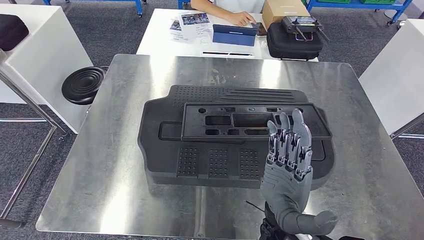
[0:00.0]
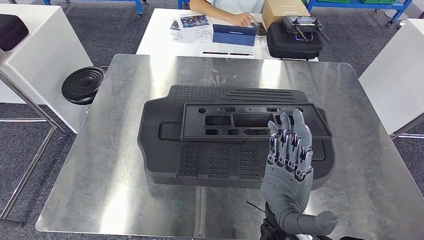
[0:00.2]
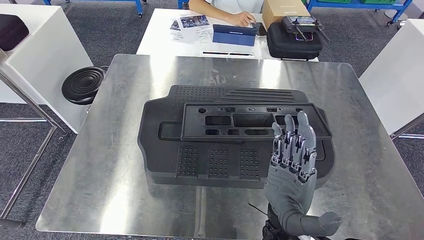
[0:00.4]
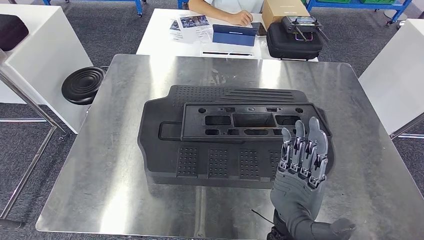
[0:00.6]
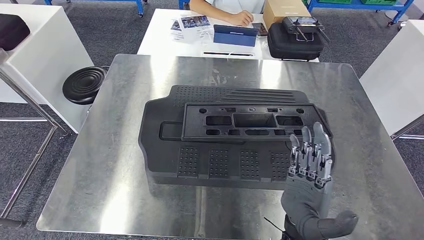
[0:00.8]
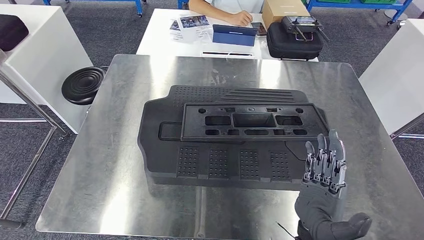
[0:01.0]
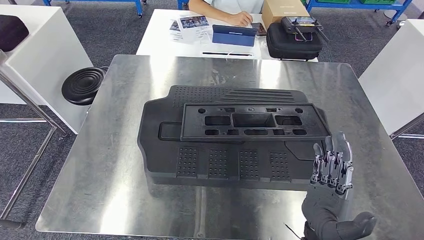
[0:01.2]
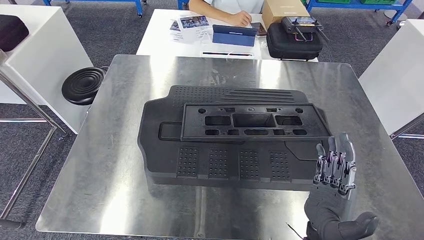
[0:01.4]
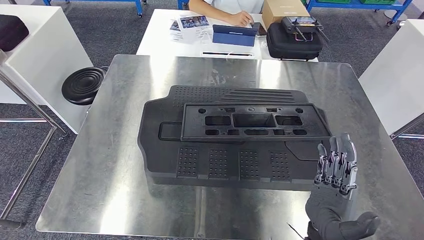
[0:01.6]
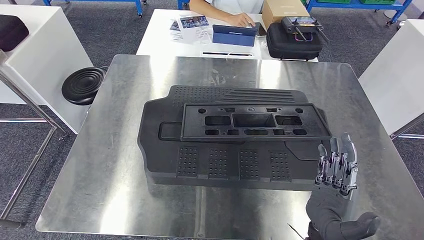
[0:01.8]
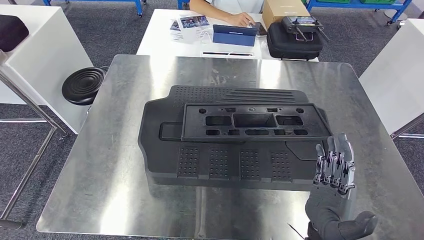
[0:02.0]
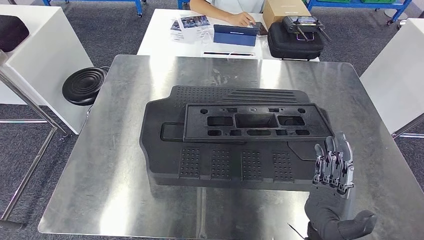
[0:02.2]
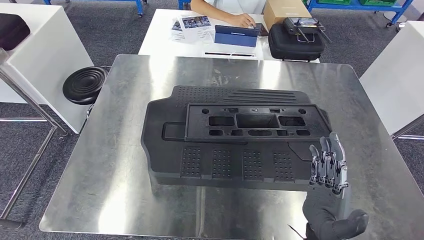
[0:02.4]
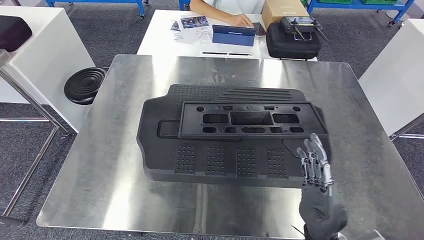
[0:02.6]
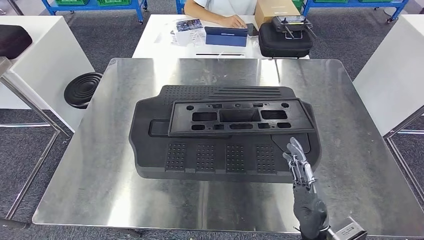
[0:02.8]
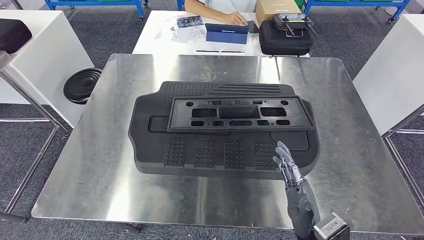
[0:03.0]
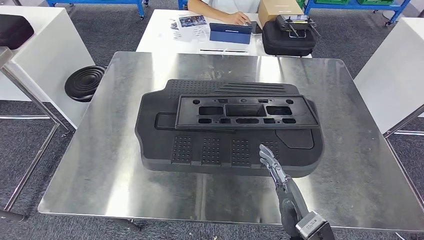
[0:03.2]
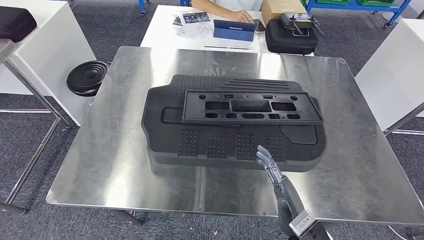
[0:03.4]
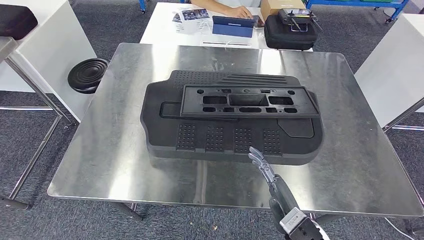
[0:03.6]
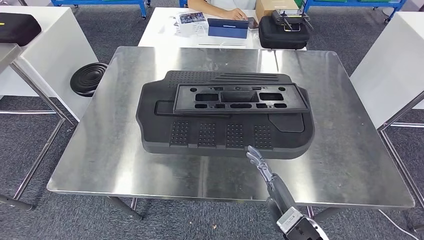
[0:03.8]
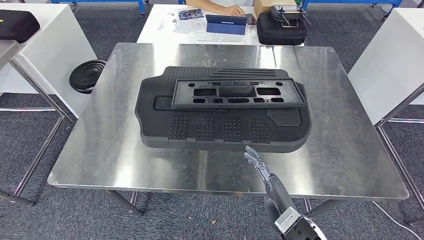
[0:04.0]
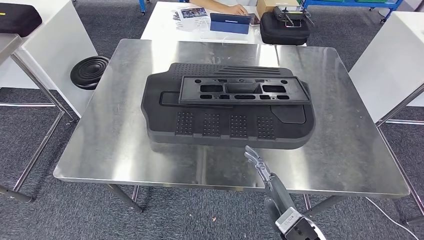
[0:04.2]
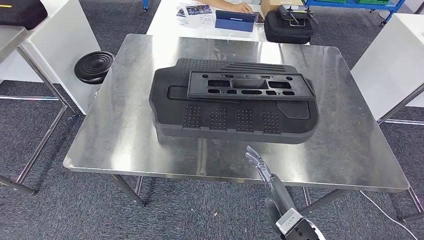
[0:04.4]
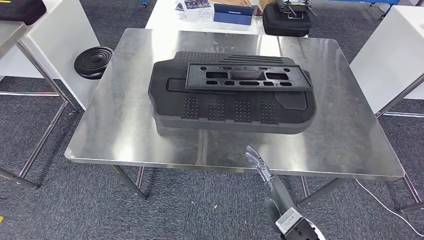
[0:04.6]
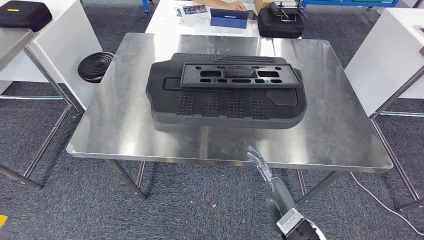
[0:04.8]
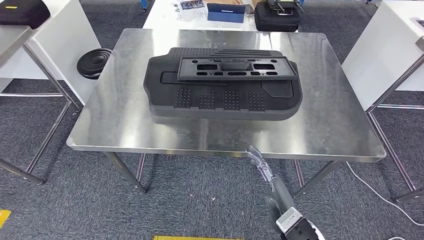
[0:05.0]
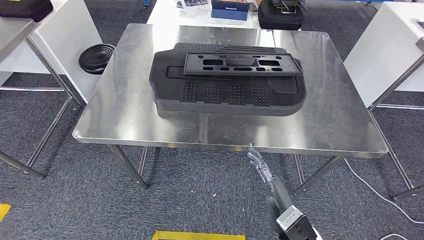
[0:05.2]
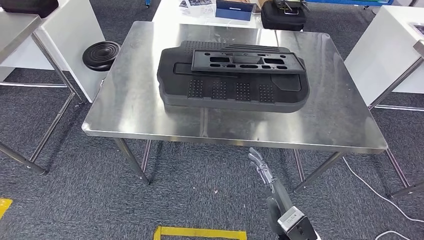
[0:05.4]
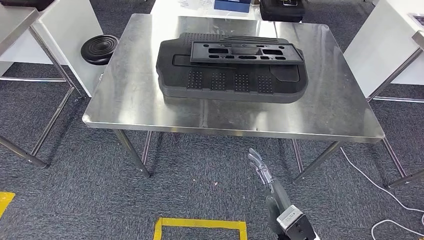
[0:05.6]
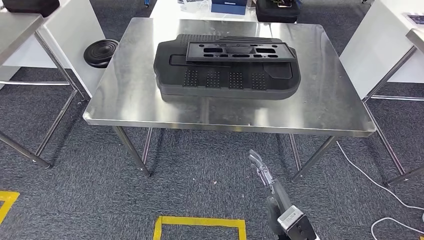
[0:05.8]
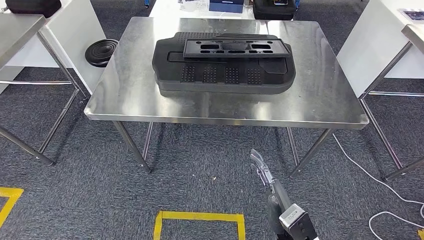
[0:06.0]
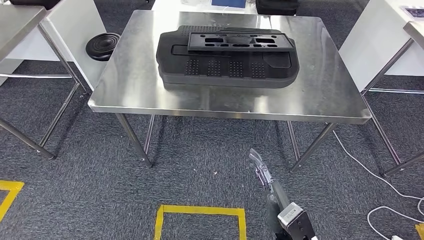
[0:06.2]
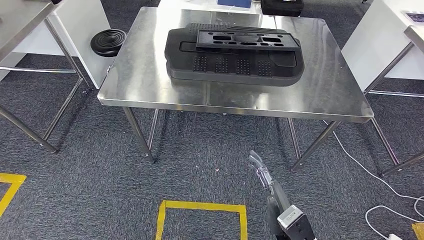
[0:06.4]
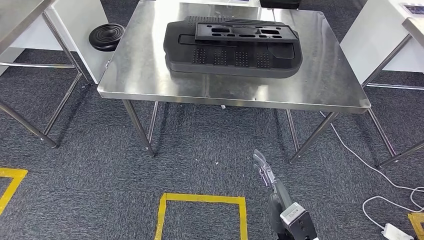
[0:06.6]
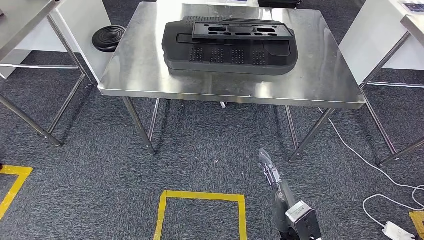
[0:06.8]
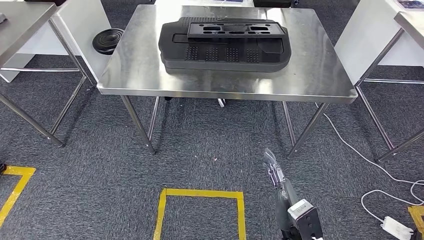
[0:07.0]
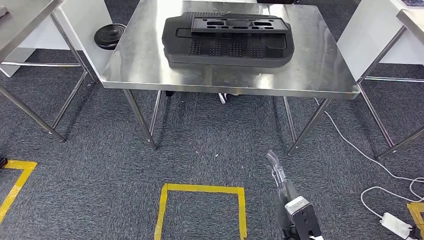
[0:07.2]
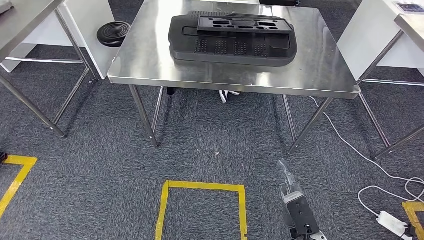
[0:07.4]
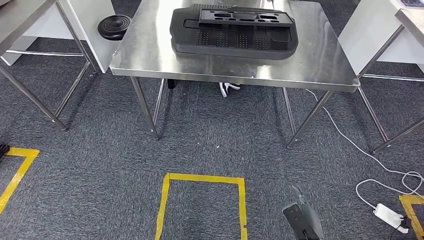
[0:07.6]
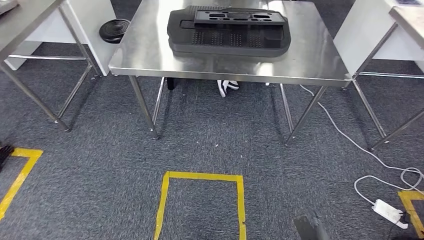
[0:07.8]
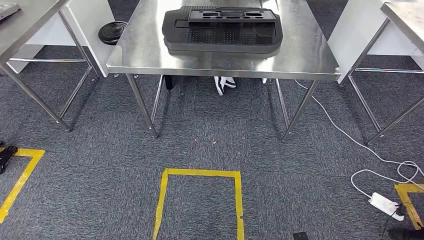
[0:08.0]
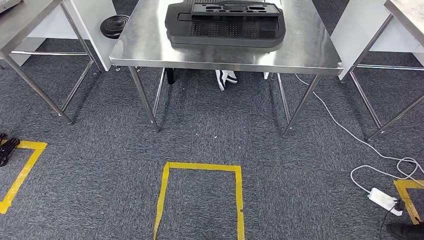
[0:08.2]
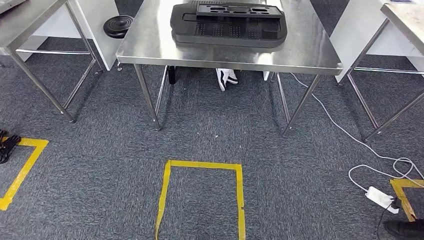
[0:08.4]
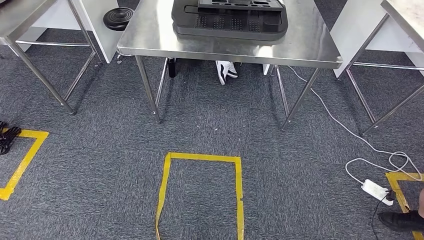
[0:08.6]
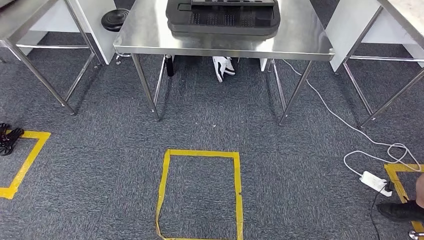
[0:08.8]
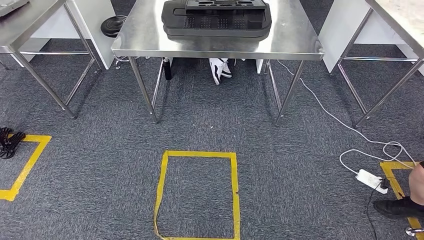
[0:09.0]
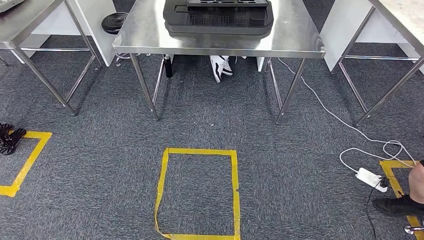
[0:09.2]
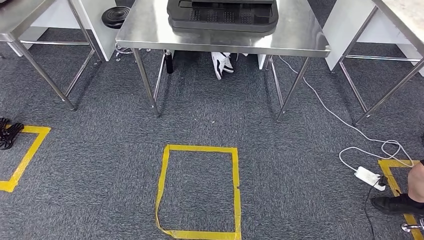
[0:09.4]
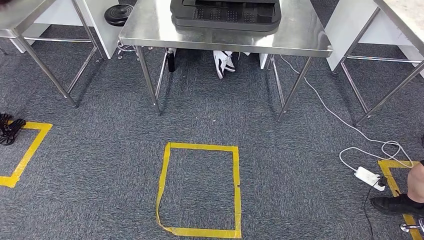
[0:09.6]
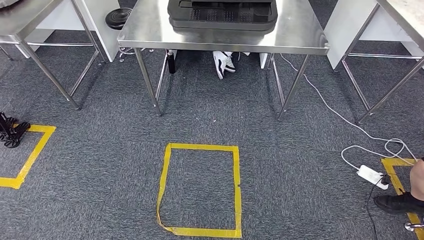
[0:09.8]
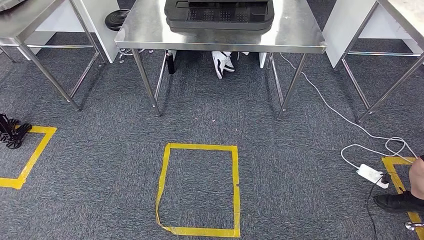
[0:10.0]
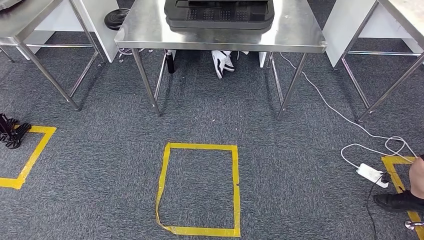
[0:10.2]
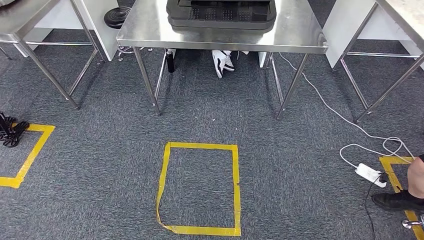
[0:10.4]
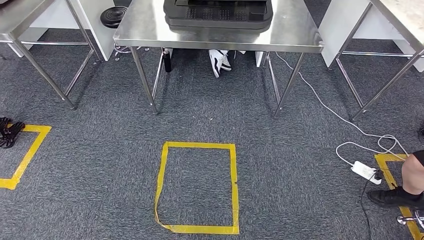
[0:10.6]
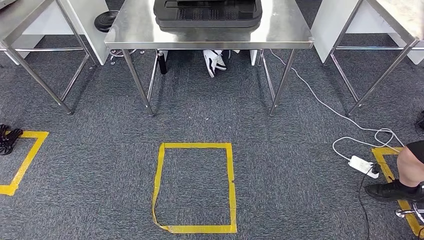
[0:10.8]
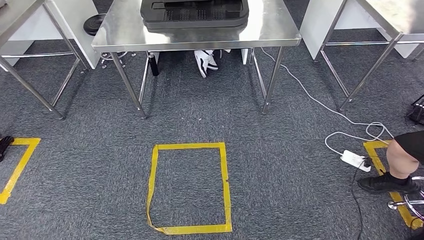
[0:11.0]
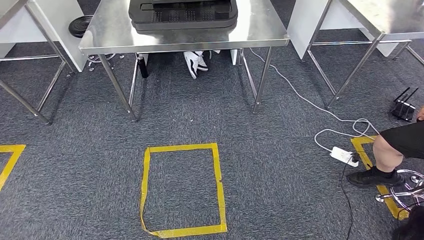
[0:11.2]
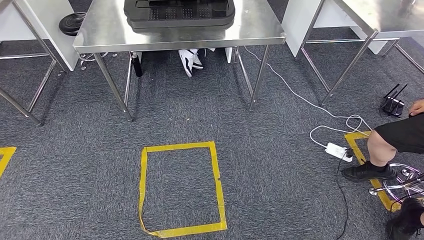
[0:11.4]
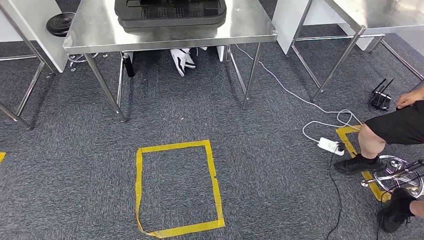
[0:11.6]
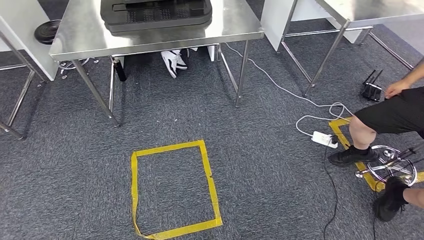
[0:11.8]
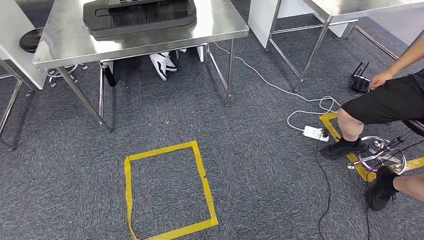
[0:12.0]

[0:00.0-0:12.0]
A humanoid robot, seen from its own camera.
0:00.0 to 0:01.6: The right hand travels to the right by some 5 cm.

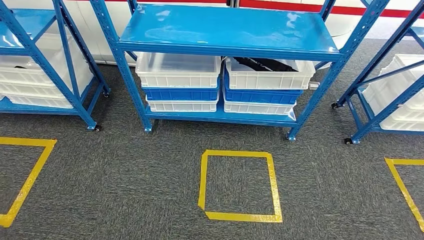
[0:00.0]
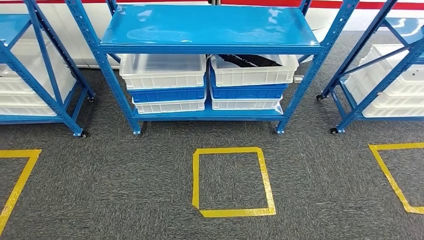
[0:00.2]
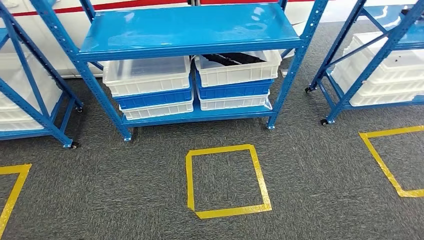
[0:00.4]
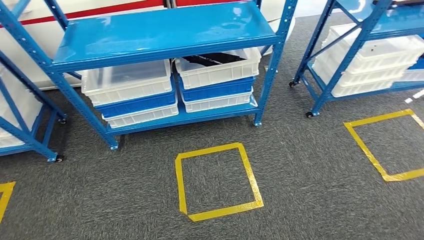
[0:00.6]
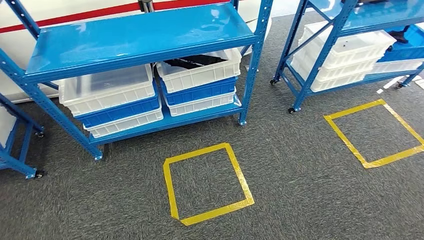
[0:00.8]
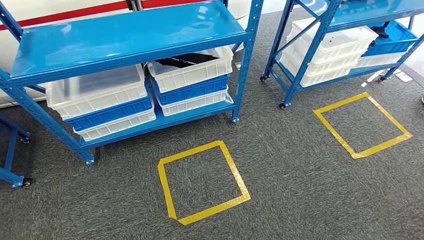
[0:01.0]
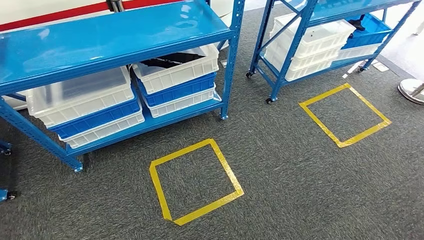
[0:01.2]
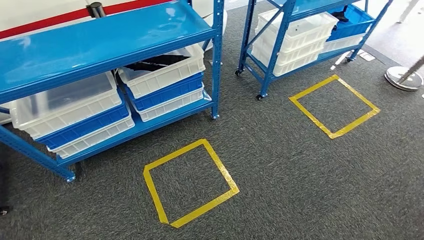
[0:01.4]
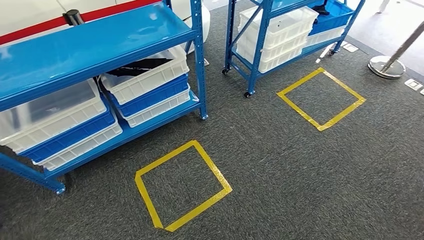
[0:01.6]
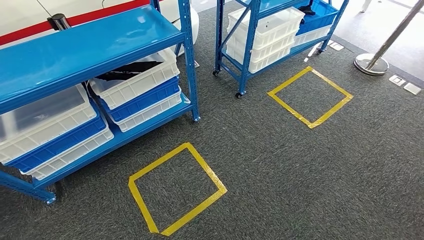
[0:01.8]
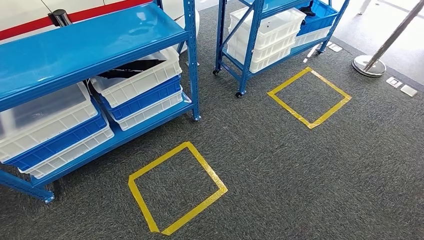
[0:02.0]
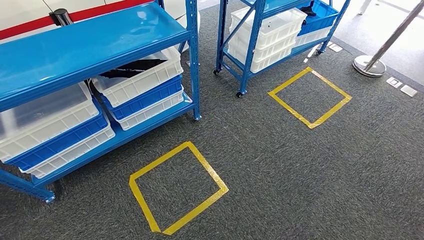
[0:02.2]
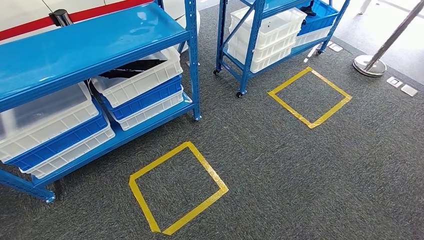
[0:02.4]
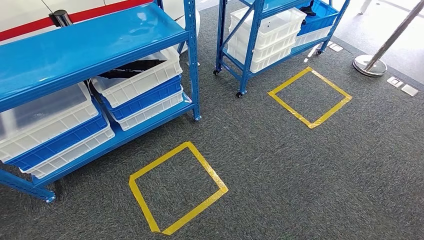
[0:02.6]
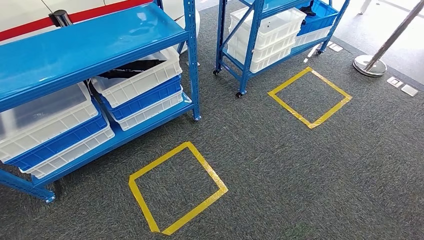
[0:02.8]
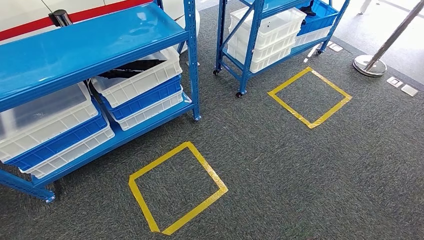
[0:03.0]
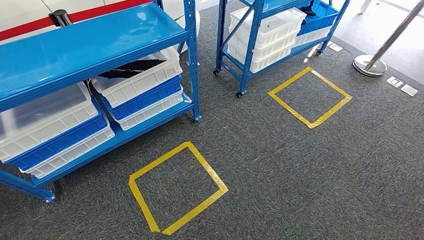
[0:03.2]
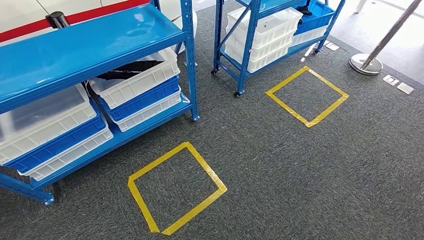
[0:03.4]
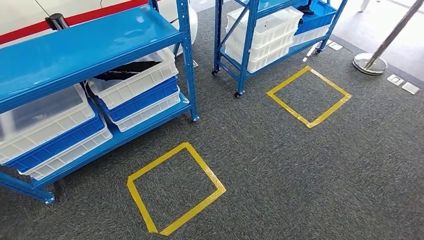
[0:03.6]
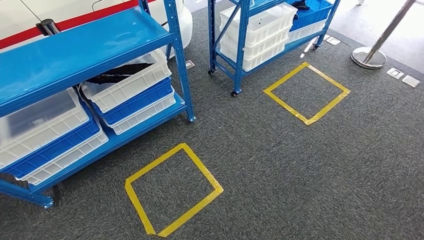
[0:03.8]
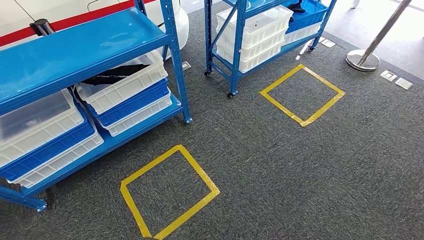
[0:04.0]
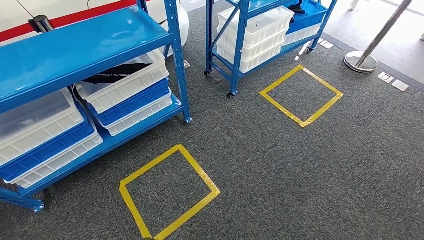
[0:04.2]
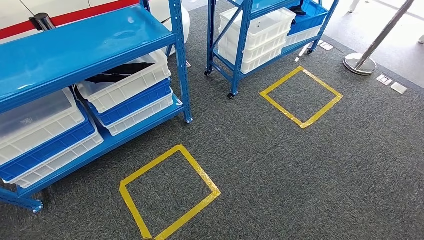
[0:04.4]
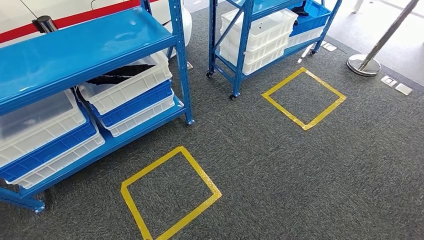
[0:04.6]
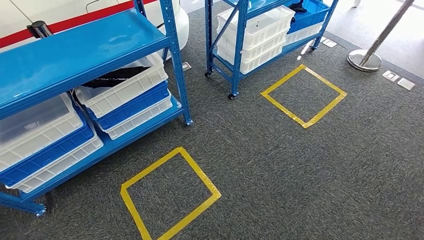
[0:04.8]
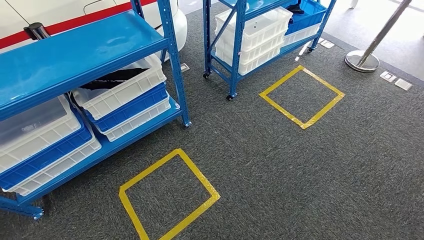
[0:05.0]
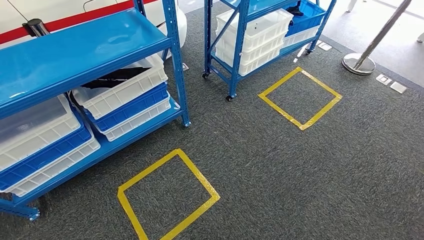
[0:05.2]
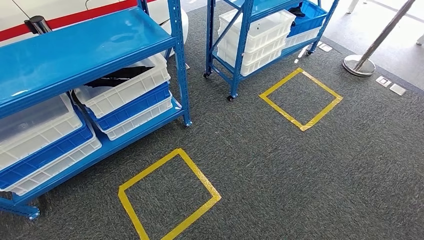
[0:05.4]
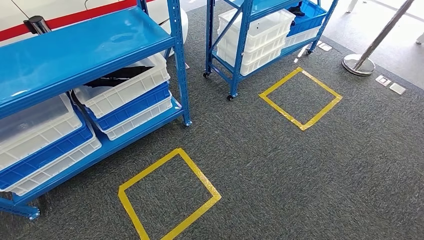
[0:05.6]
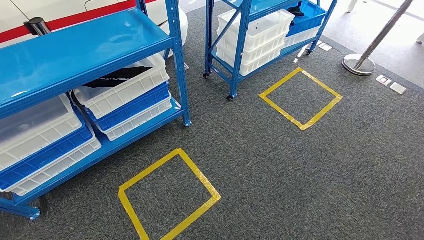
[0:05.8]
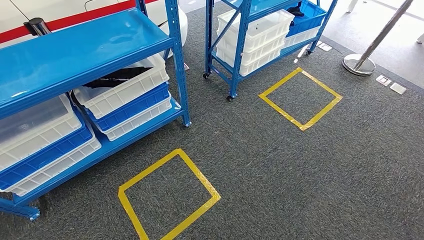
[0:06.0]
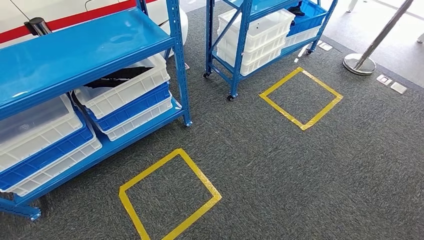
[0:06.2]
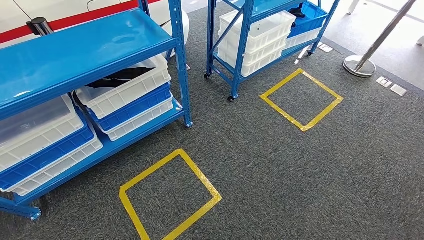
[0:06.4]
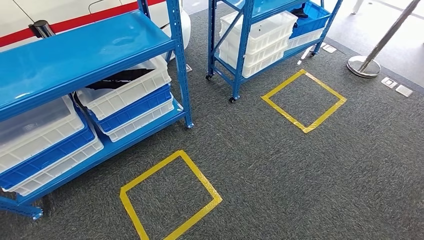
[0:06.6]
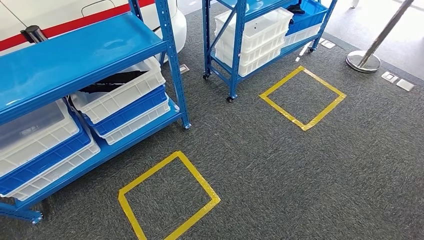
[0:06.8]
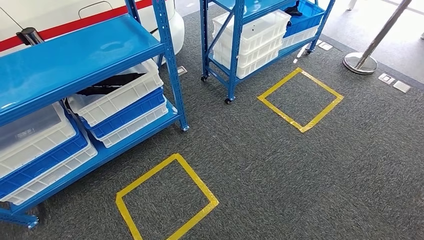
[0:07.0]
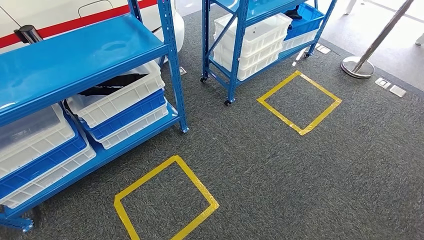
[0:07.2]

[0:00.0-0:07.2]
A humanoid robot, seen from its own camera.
0:04.4 to 0:05.8: The two hands keep their place.
